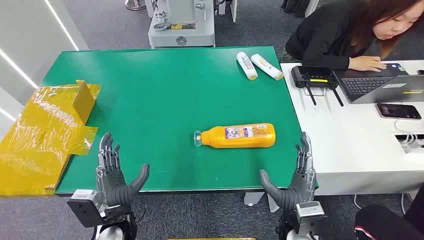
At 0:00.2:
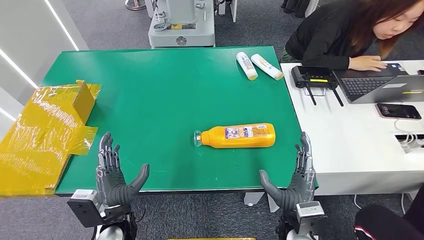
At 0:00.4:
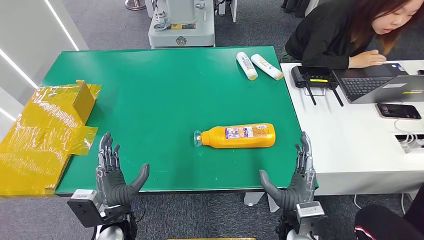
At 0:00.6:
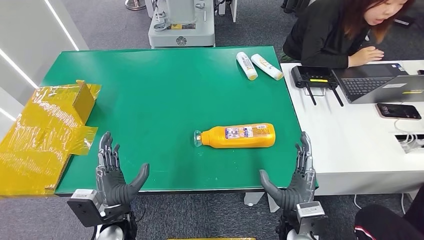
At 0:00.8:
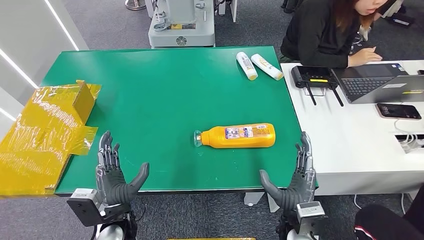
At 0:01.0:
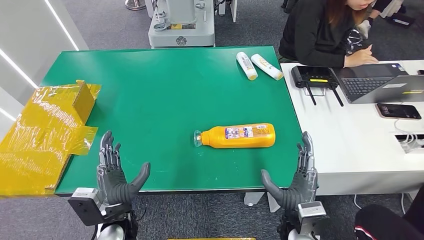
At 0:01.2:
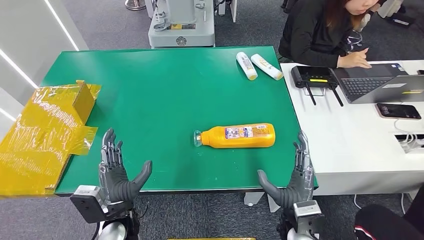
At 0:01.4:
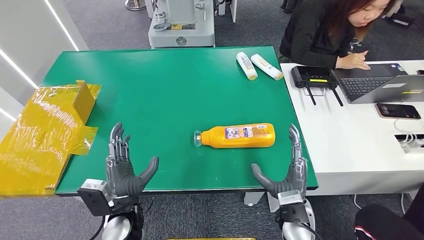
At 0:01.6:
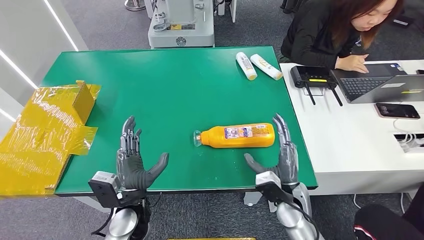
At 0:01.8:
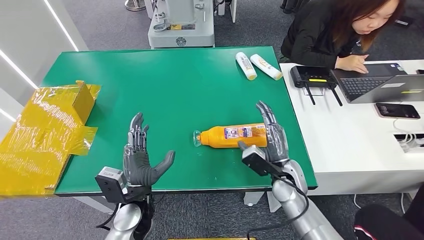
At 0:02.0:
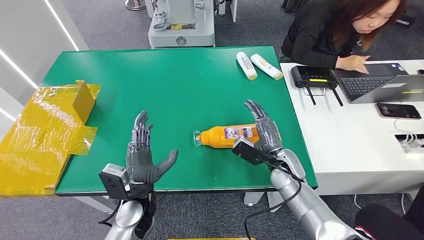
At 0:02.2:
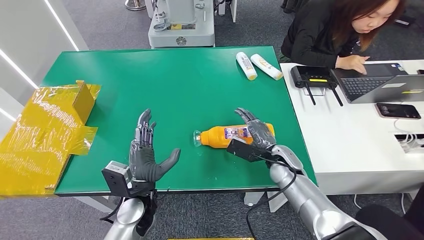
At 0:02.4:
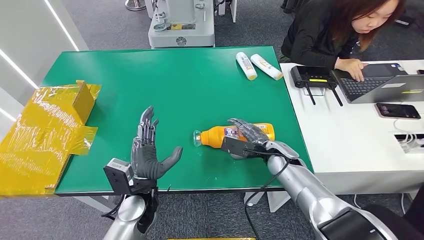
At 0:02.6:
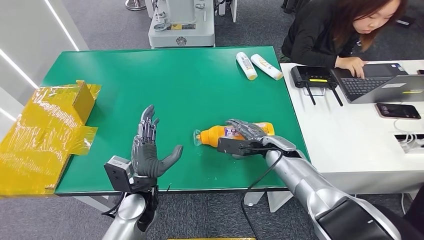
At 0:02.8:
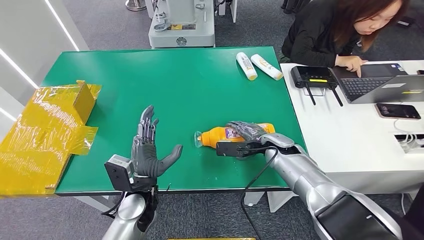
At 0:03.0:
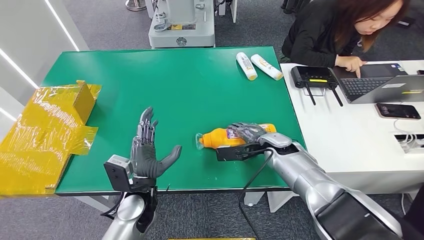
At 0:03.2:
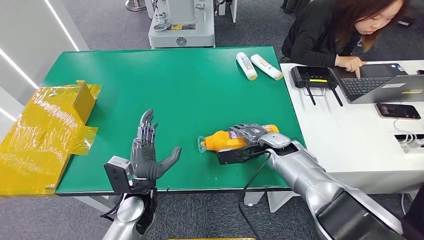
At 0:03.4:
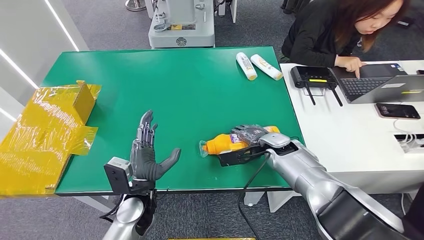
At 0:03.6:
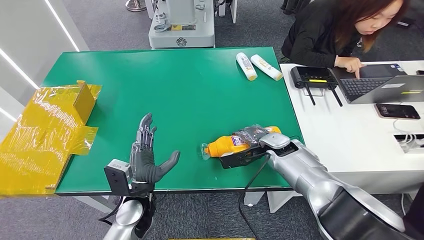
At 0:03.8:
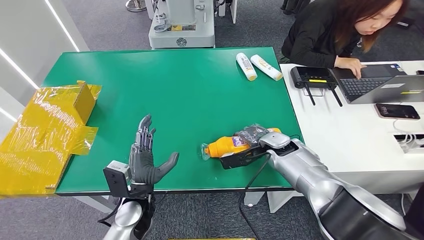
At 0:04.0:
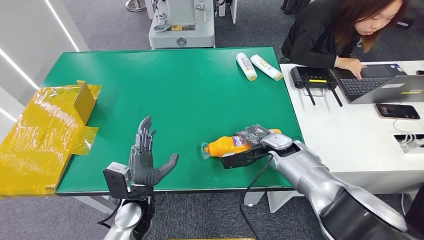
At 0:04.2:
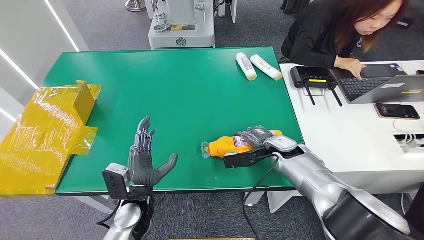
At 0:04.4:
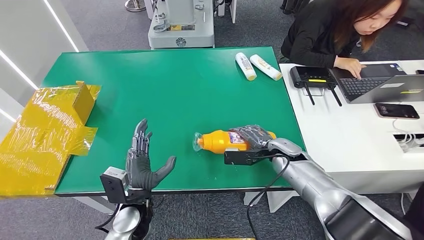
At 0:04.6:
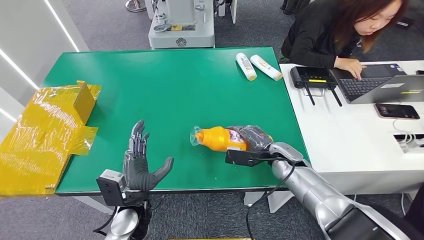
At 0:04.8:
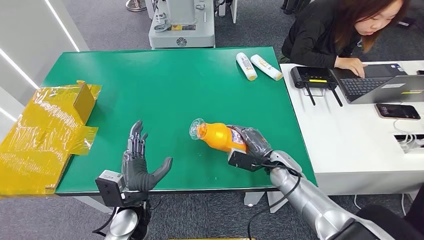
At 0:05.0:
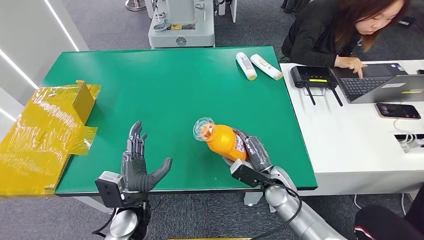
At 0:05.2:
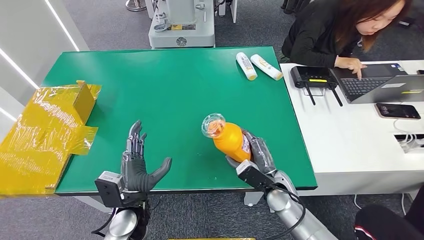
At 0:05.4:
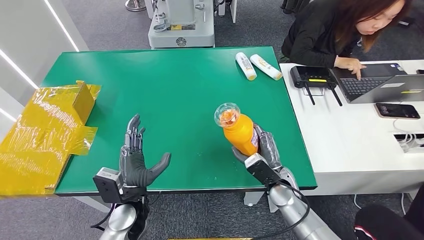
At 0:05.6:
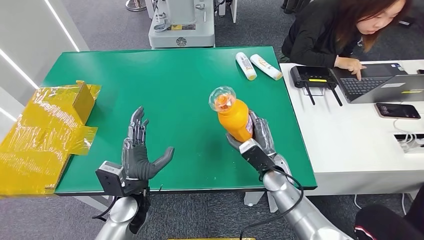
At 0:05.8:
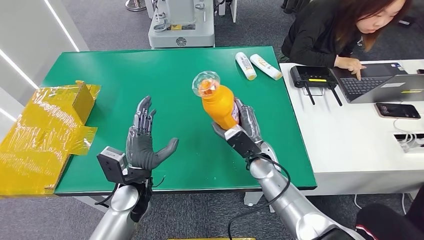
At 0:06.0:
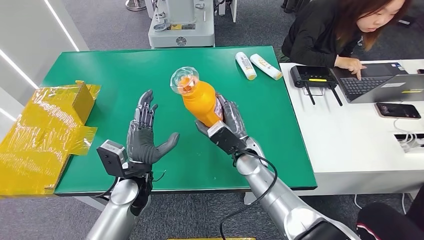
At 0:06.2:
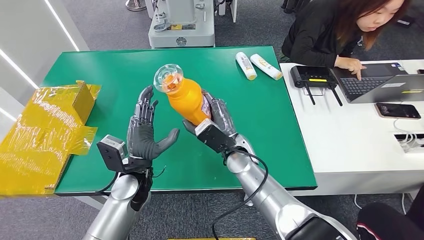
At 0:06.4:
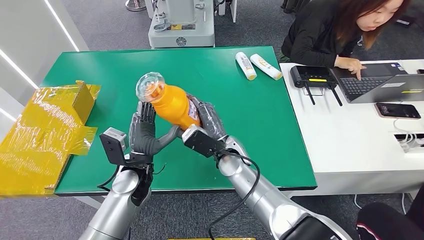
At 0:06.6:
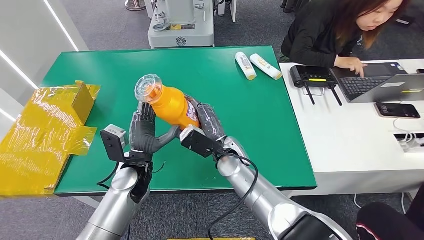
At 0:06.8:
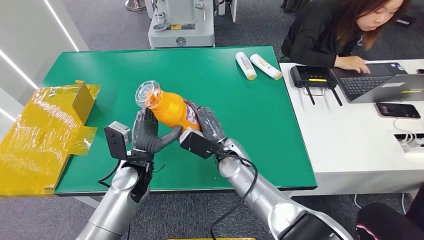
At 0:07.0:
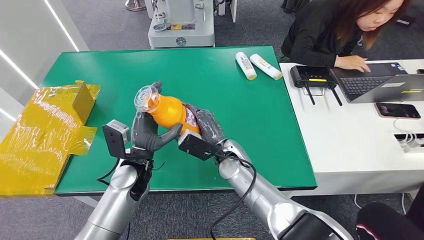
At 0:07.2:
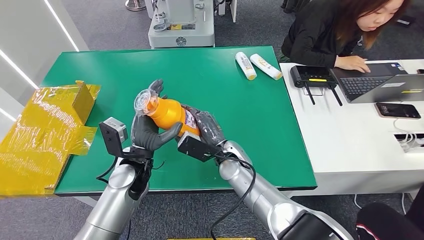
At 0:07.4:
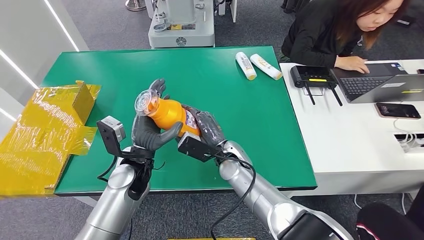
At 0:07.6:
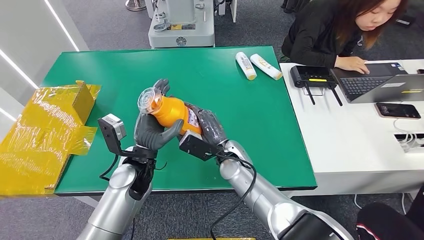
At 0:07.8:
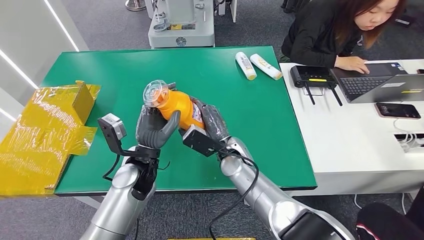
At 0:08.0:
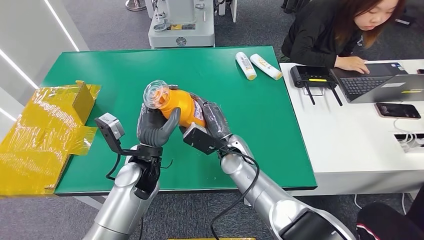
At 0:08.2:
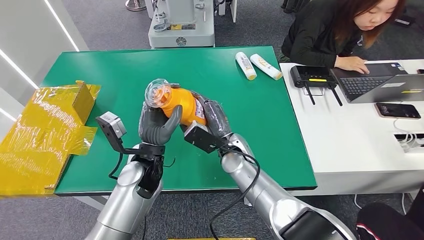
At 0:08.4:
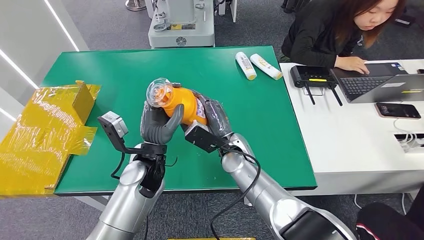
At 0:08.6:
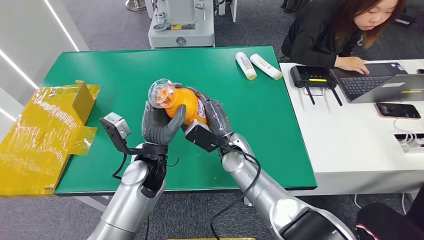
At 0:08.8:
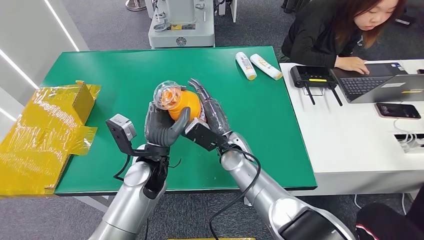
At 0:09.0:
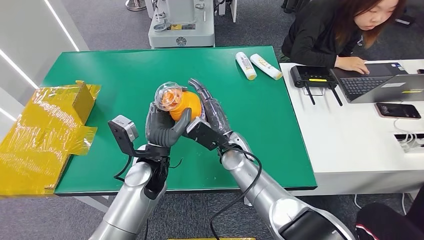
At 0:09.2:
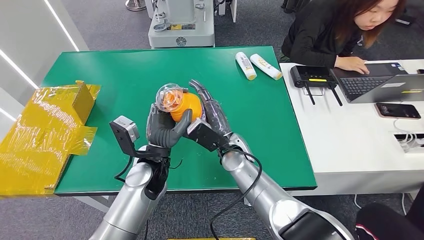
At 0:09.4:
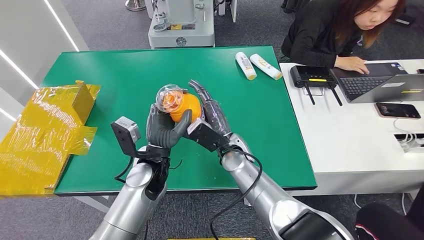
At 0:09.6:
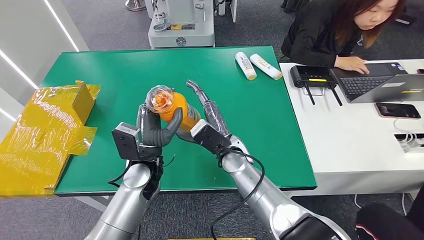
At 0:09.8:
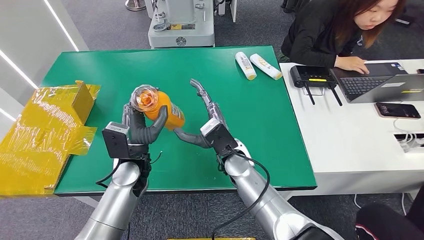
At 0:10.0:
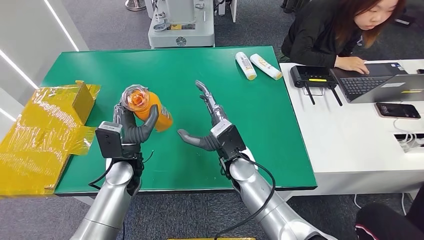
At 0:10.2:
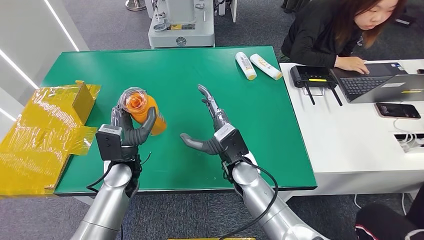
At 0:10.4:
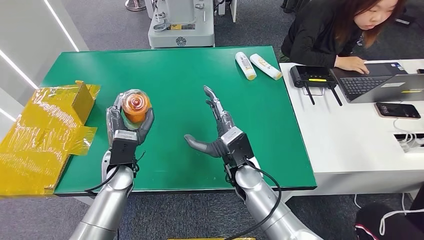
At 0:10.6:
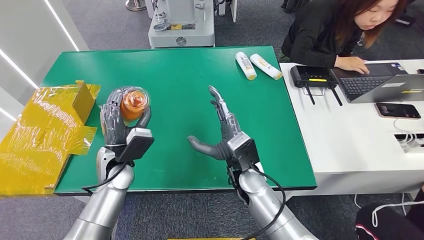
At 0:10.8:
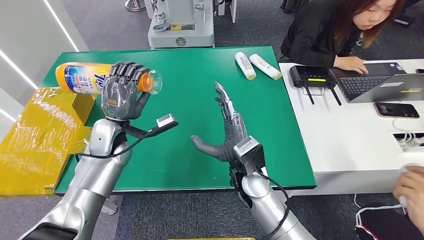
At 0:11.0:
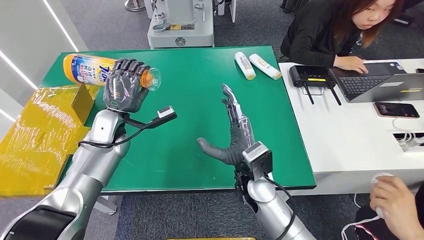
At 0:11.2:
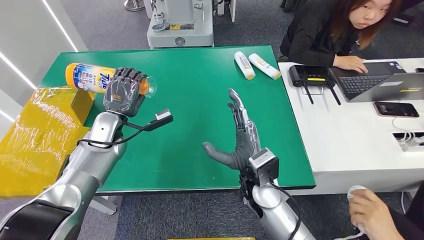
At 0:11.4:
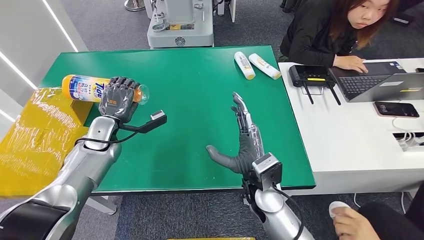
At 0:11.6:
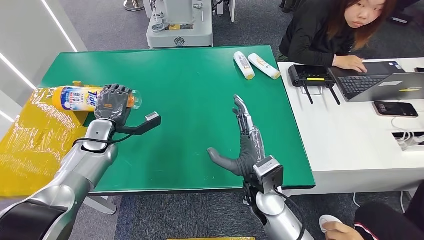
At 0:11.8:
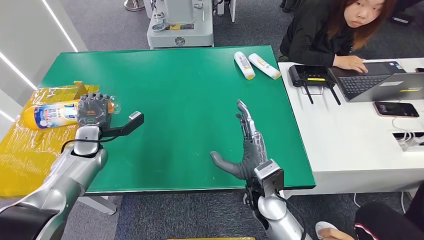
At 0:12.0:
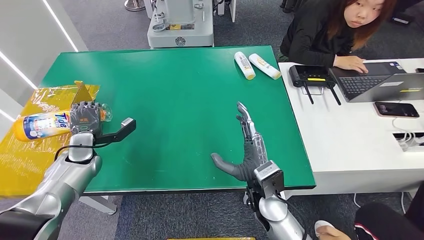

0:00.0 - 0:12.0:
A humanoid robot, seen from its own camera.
Step, 0:00.0 - 0:05.2: Pick up the bottle from the table.
0:01.6 - 0:03.0: The right hand heads forward, covering roughly 15 cm.
0:03.0 - 0:04.4: There are only small adjustments of the hands.
0:04.4 - 0:06.0: The left hand moves forward, approximately 5 cm. The right hand moves to the left, some 10 cm.
0:06.0 - 0:07.6: The hands stay close to where they were, moving slightly.
0:07.6 - 0:09.0: The hands make only small movements.
0:09.0 - 0:10.4: The left hand travels to the left by approximately 10 cm.

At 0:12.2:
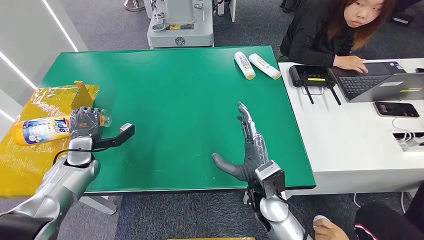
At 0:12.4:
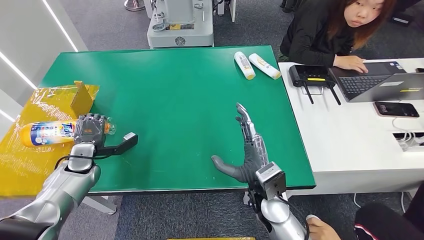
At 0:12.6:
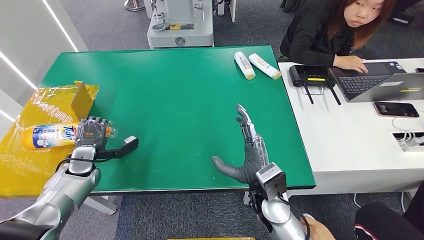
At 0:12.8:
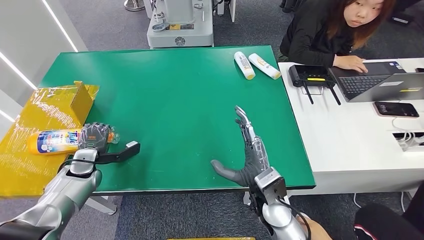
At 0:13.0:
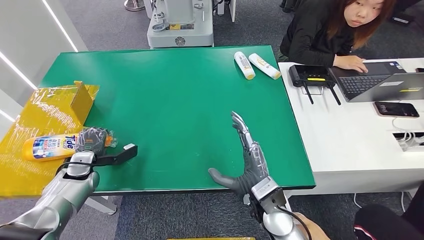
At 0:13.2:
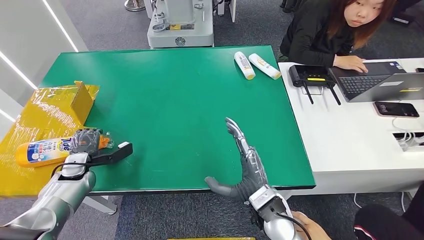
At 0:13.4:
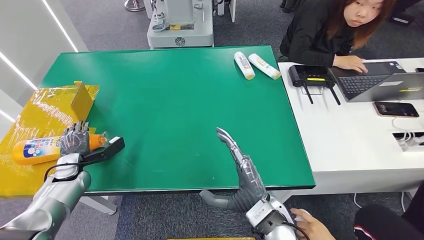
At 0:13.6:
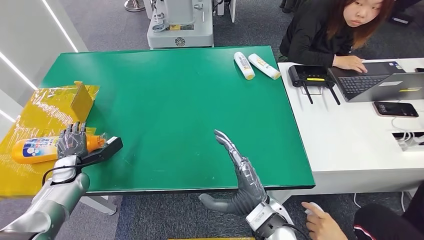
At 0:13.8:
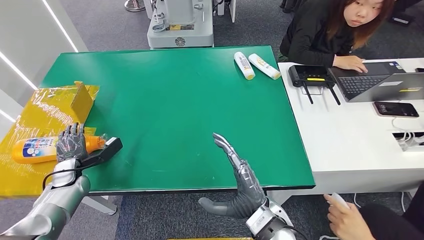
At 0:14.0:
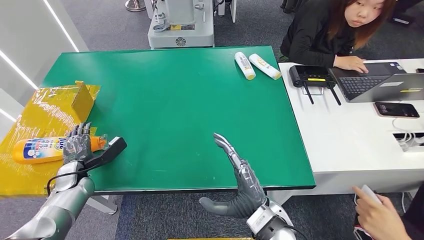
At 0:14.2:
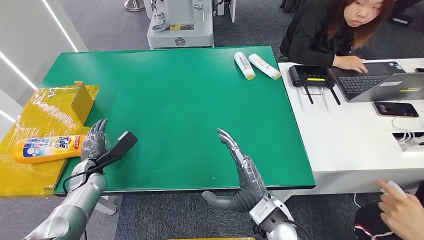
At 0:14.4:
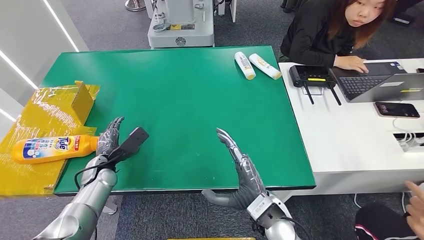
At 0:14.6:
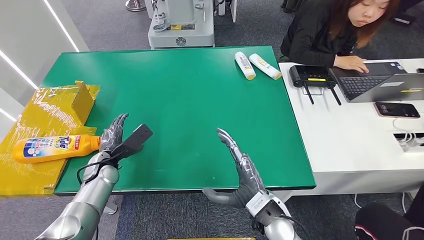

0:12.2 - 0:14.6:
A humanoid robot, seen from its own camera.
Step, 0:12.2 - 0:14.6: Turn the bottle to the front side.
0:12.2 - 0:13.4: The right hand moves backward, about 5 cm; the left hand moves some 5 cm.
0:13.4 - 0:14.6: The left hand travels to the right by some 10 cm.
